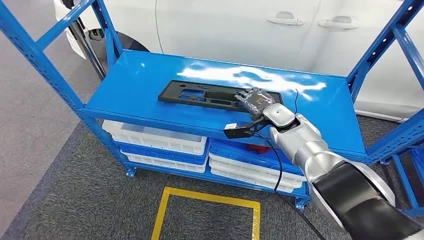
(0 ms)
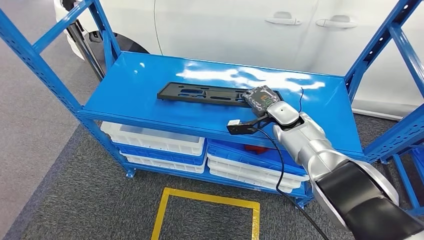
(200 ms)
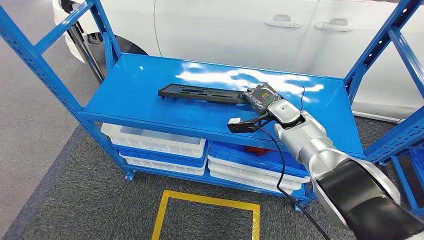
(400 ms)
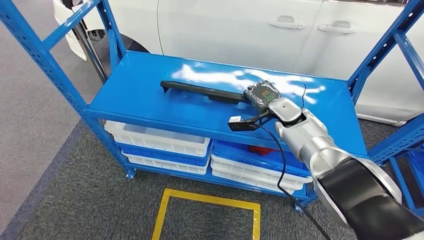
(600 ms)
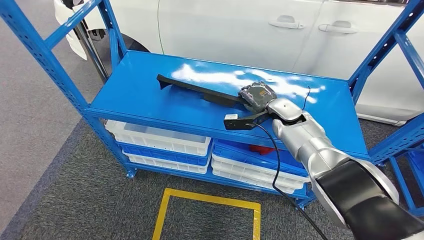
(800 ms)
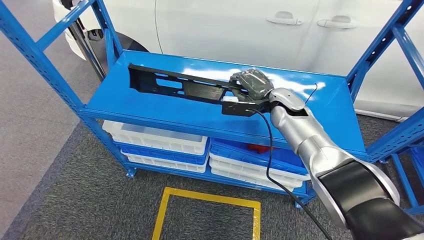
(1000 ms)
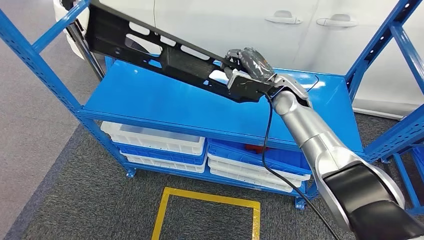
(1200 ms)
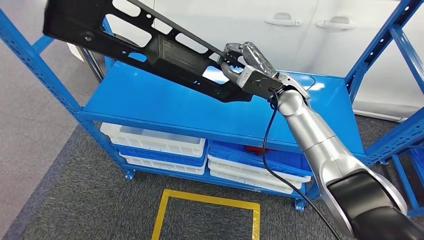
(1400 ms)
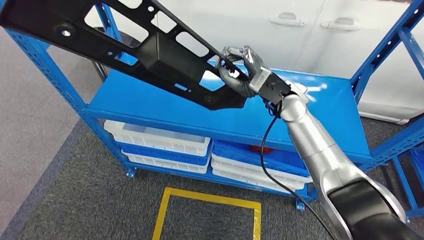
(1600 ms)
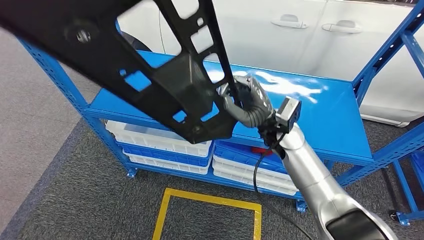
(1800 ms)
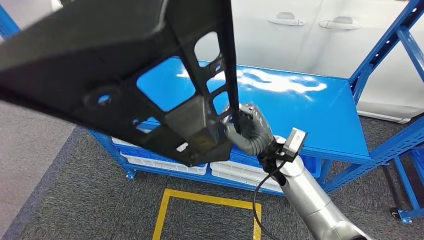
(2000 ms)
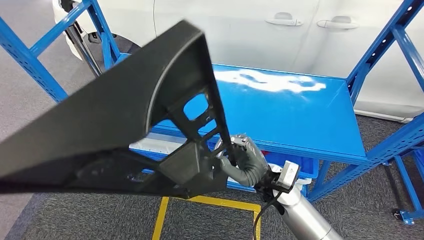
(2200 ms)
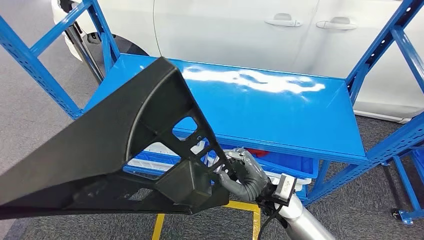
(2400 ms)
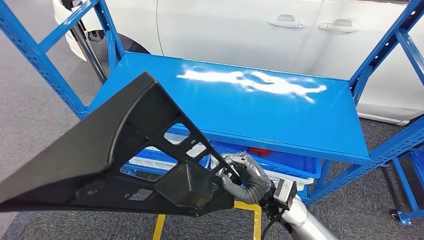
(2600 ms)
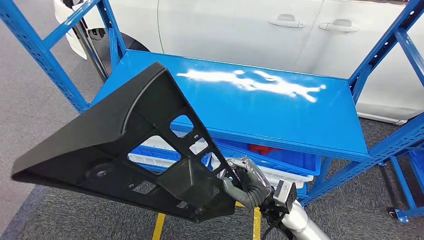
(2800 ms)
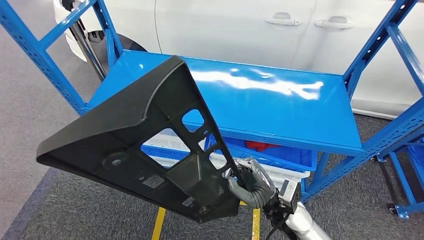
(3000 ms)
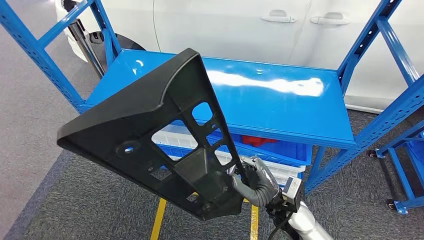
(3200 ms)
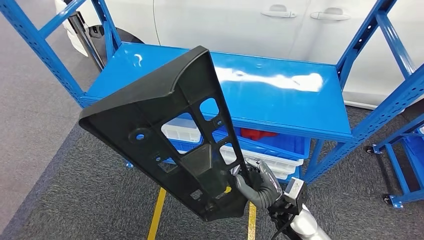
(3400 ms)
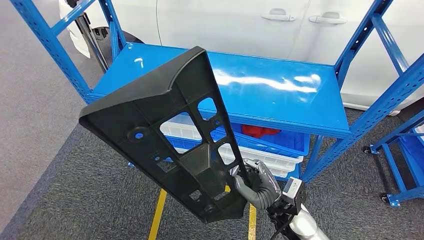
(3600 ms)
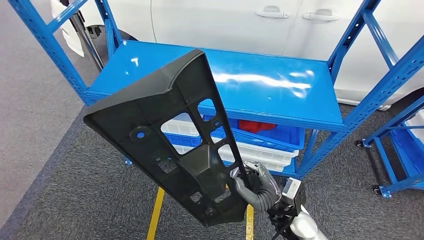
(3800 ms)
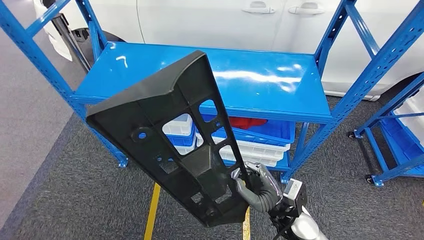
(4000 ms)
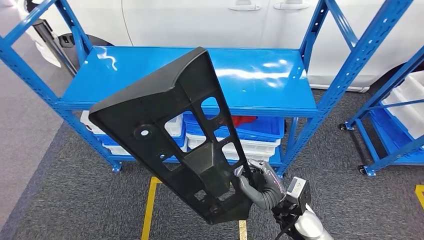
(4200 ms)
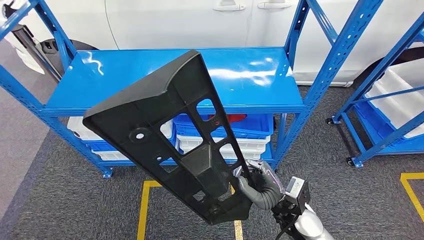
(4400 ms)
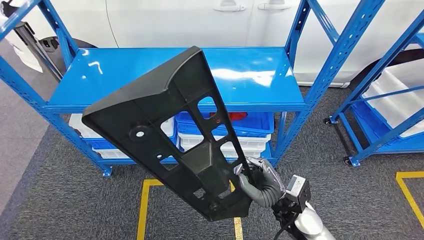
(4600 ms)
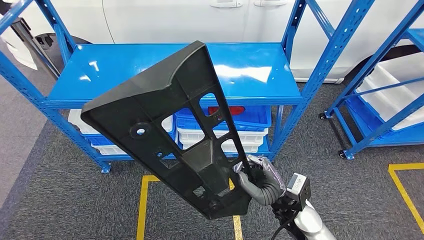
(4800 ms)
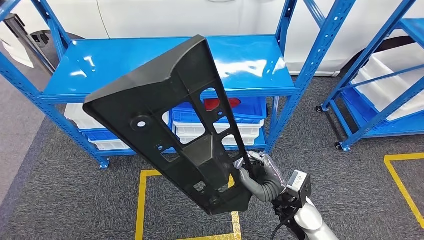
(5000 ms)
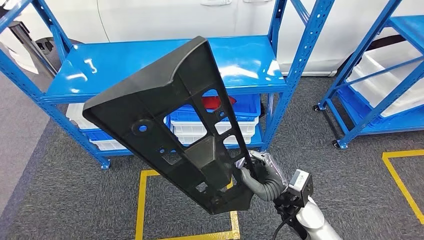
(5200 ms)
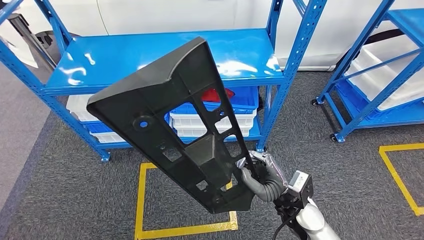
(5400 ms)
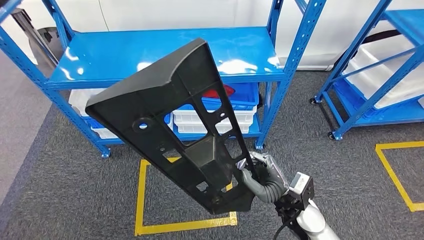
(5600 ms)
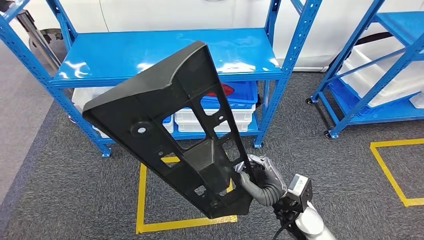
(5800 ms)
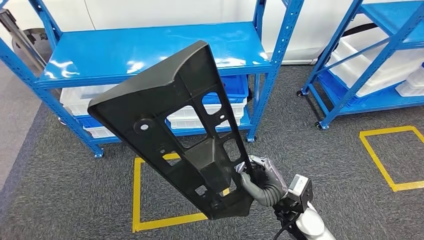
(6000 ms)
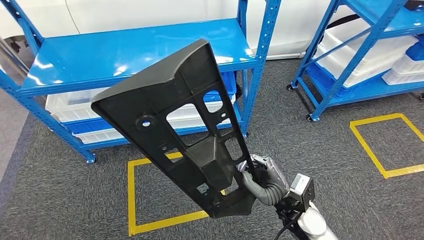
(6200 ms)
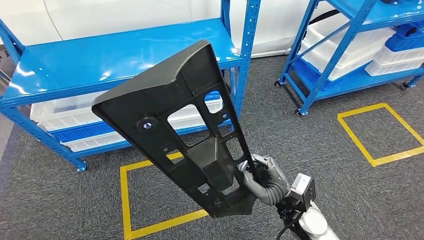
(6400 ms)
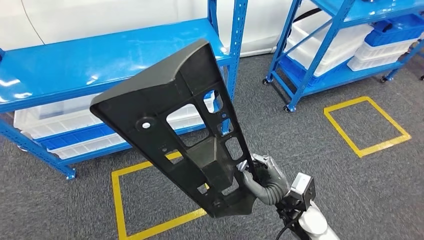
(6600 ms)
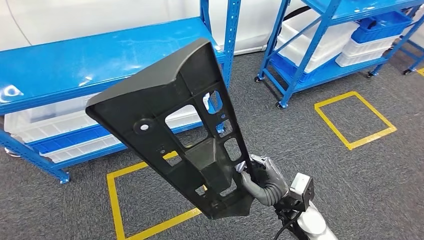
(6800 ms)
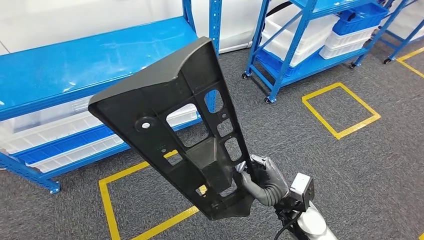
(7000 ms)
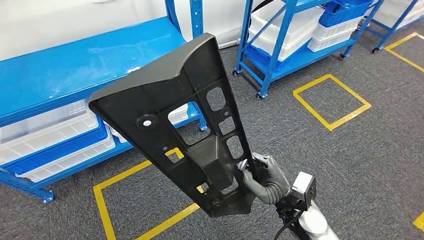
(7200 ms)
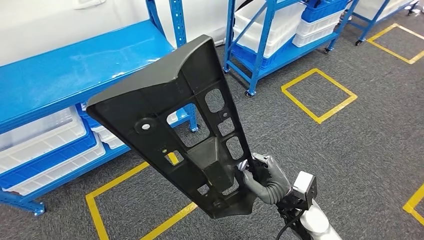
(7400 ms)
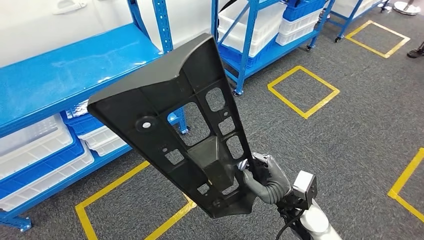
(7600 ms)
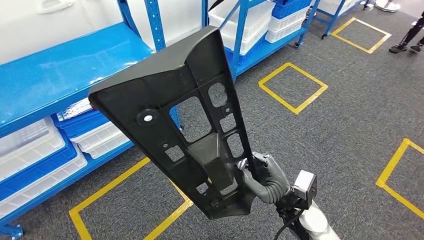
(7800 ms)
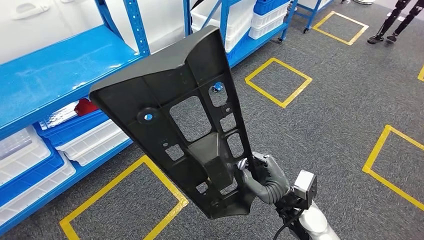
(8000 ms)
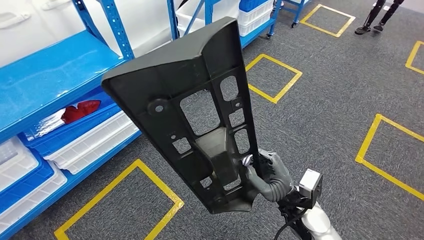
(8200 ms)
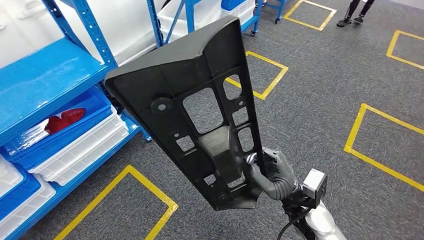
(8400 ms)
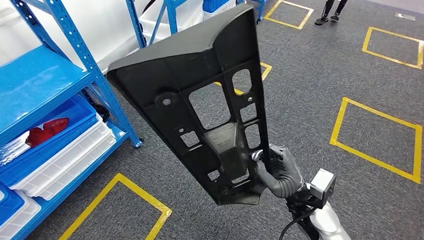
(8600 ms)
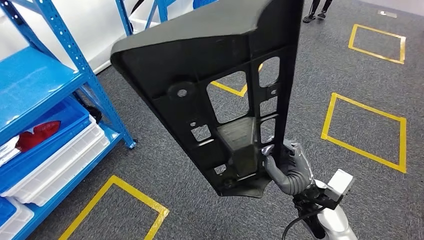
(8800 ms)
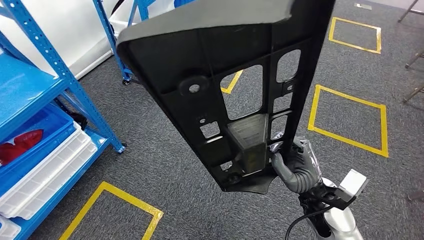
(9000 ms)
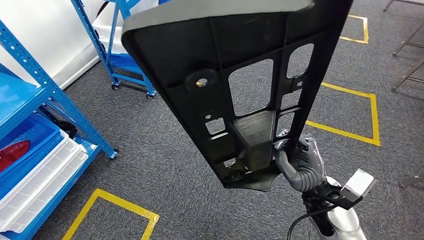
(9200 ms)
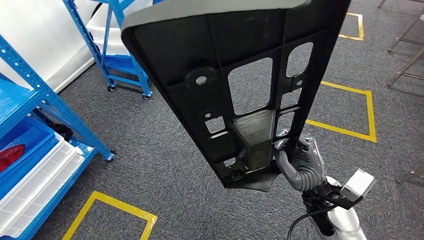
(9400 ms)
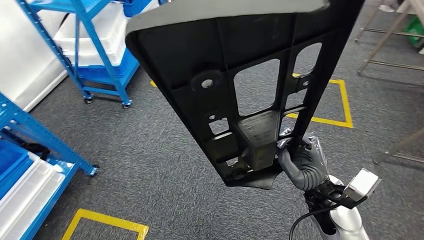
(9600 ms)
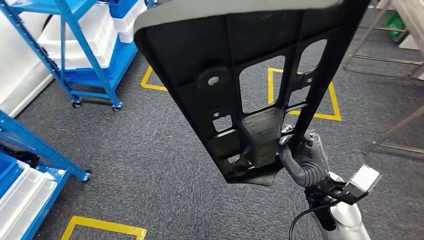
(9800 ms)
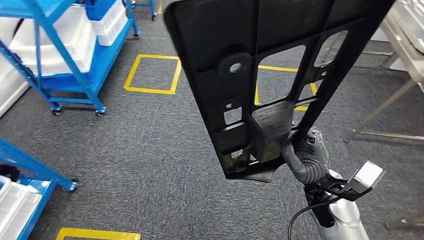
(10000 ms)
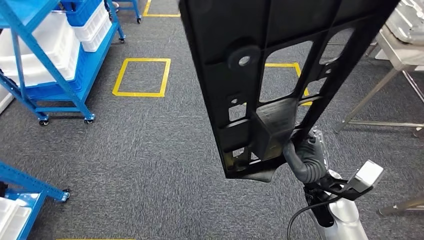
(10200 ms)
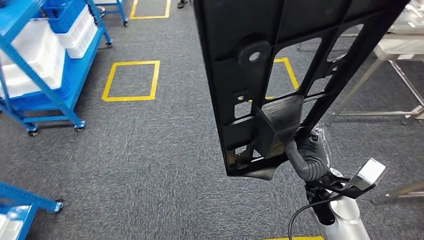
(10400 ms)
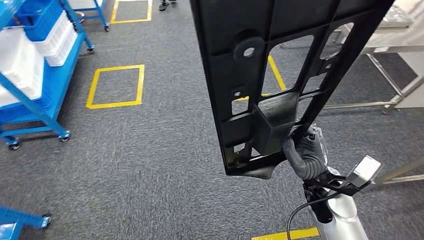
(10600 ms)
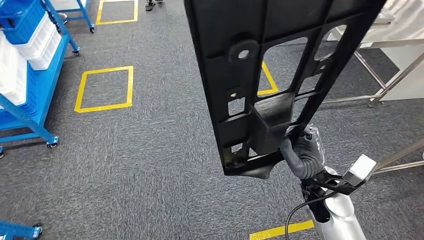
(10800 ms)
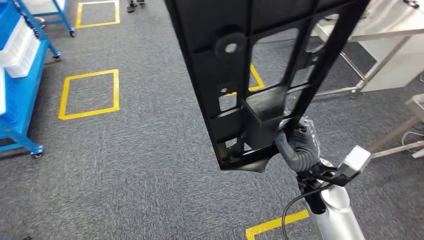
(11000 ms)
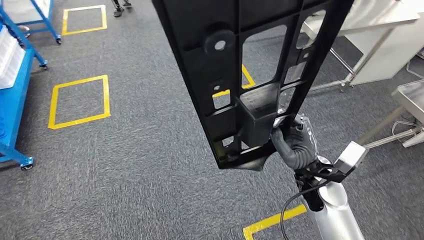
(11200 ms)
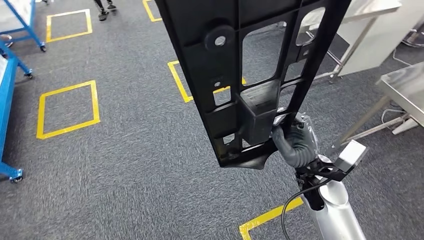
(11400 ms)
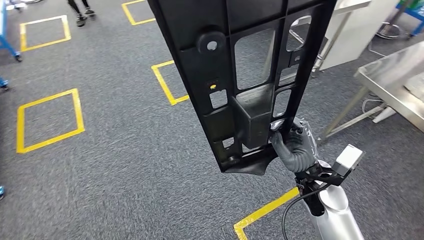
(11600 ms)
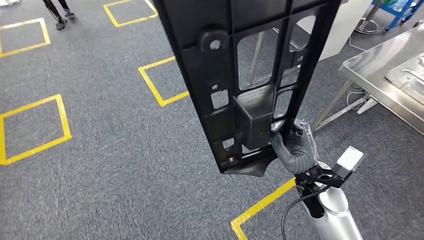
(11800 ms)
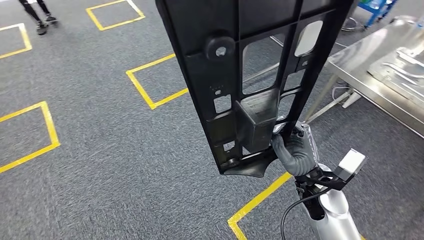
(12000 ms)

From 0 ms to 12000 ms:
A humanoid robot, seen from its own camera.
Step, from 0 ms to 2600 ms: Pick up the large material from the shelf.

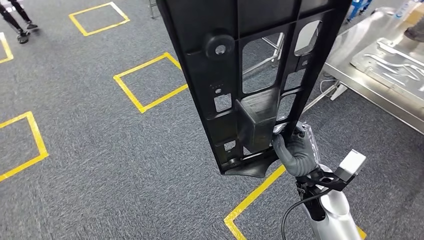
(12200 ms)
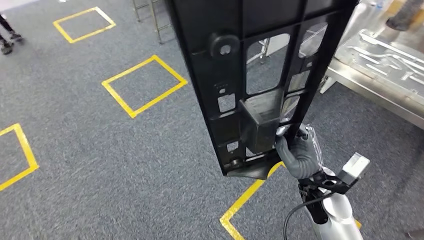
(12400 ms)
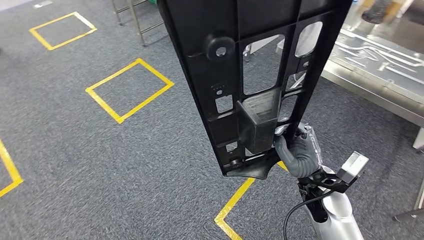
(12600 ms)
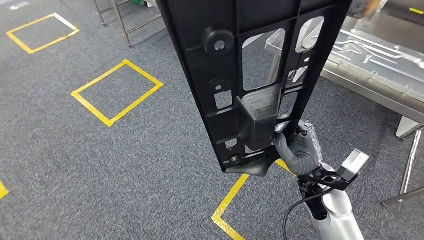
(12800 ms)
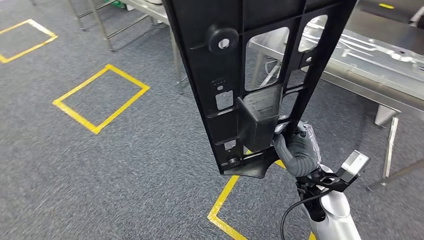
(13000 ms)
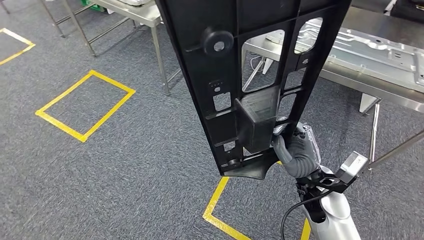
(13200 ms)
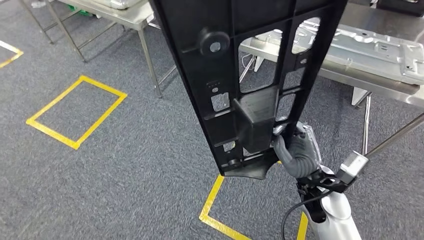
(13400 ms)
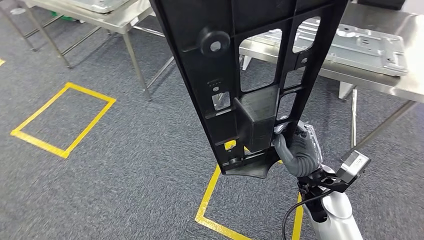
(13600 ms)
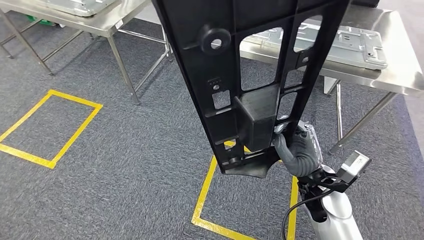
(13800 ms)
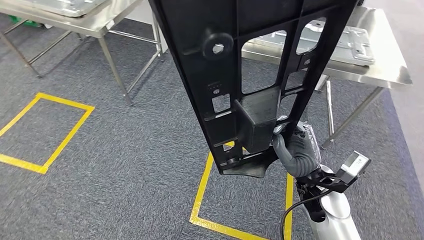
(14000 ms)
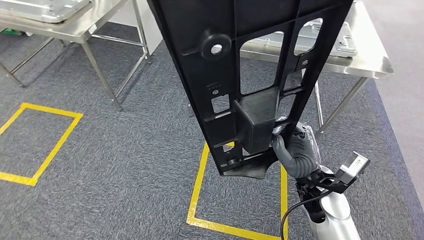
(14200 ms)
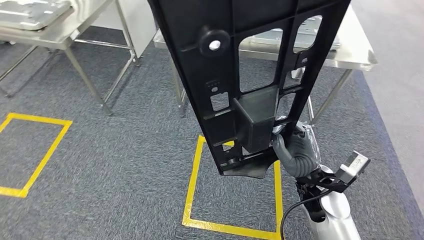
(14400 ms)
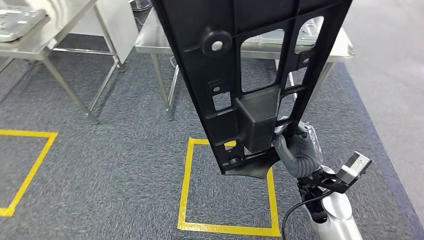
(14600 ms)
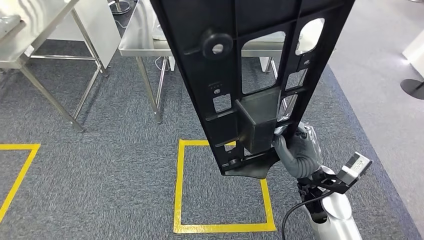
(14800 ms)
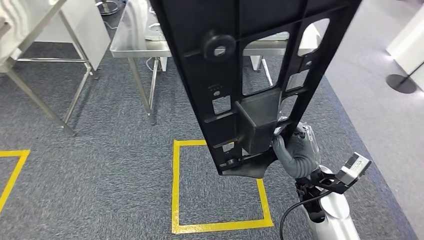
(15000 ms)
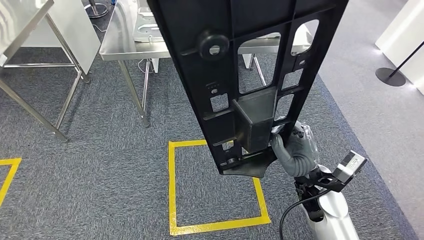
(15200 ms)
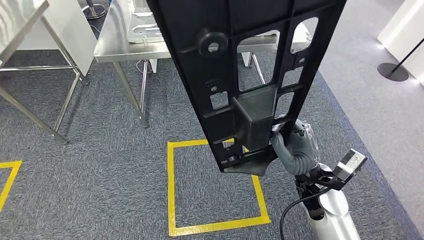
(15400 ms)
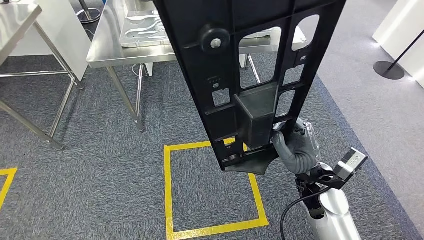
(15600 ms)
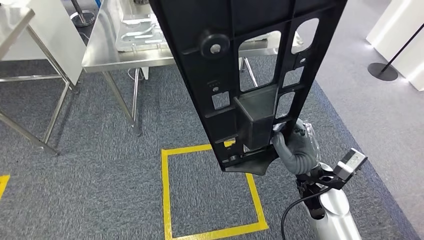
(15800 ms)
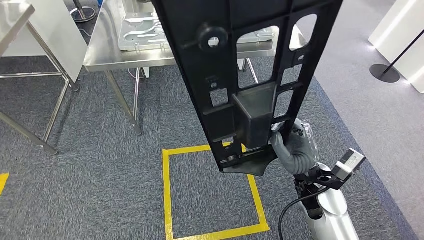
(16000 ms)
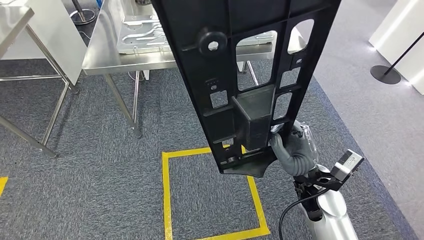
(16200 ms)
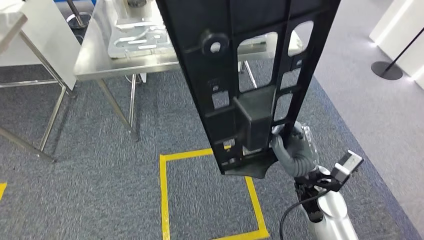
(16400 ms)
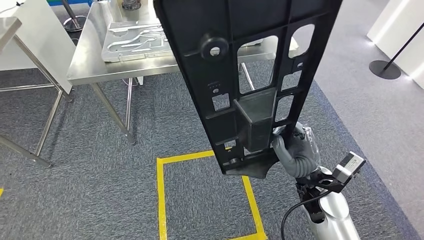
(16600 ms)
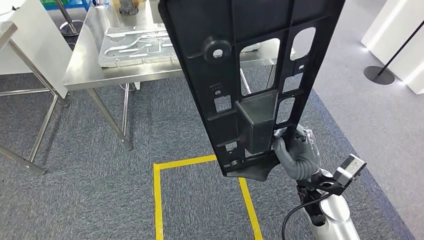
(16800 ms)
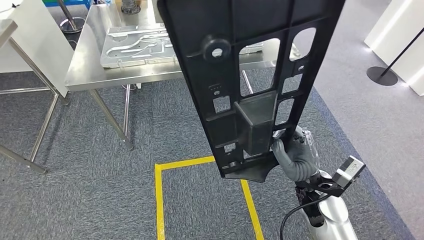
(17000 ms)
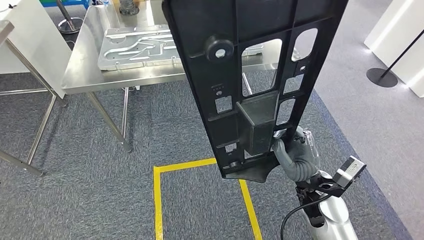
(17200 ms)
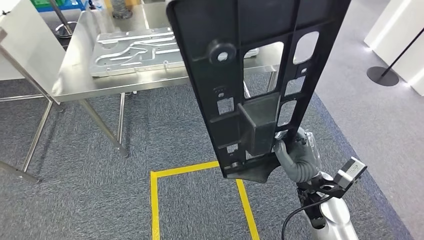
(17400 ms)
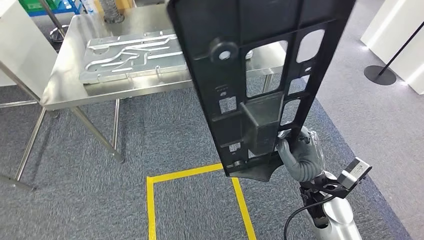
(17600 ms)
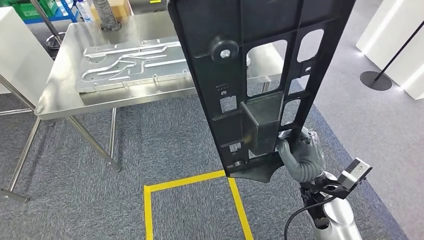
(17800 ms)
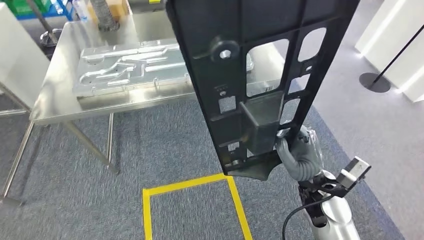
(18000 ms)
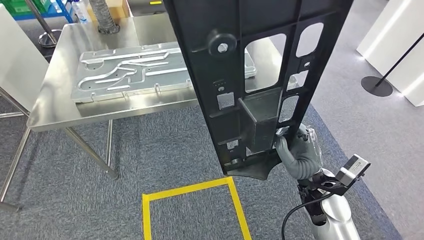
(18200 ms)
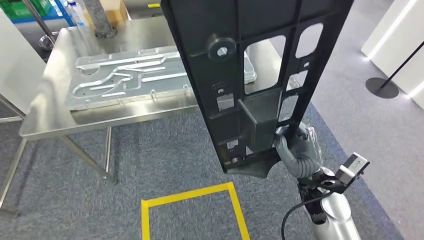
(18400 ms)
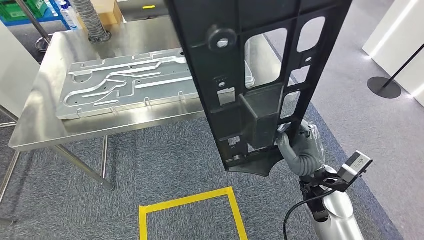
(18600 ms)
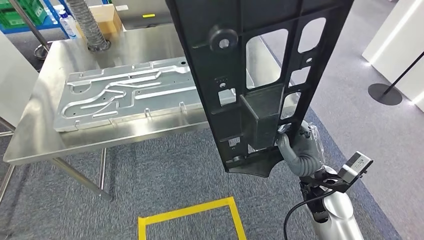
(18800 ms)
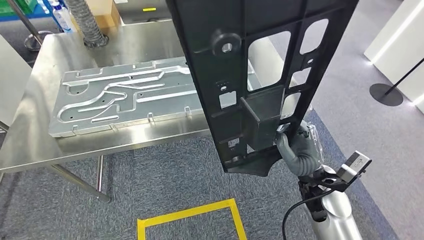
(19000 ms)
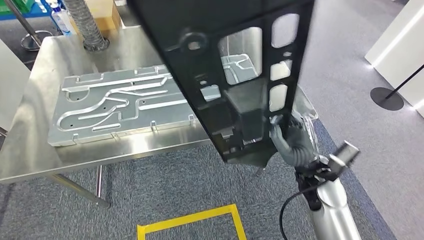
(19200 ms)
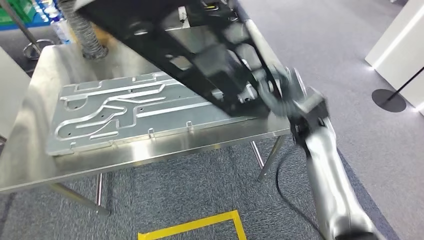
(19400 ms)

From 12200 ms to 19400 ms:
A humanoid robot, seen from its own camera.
Step, from 12200 ms to 19000 ms: Move the large material to the workbench.
